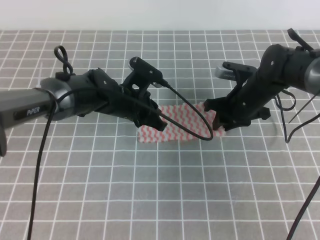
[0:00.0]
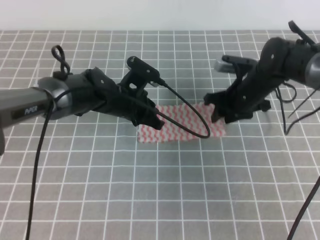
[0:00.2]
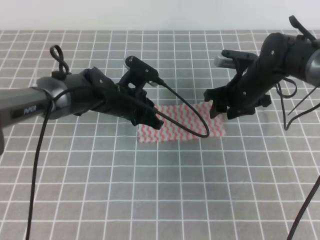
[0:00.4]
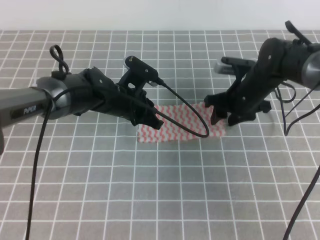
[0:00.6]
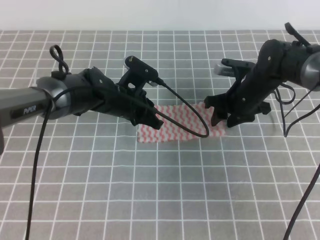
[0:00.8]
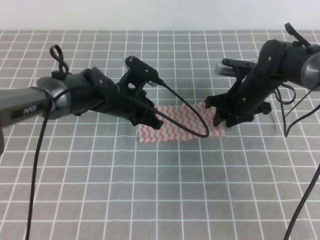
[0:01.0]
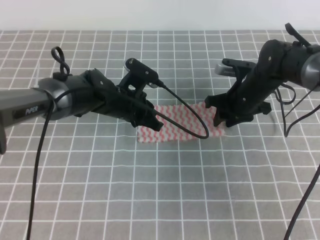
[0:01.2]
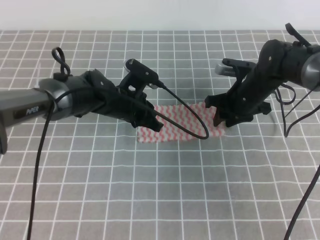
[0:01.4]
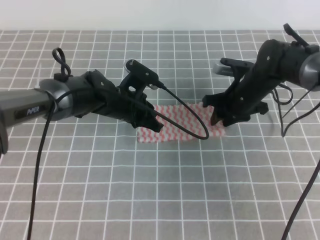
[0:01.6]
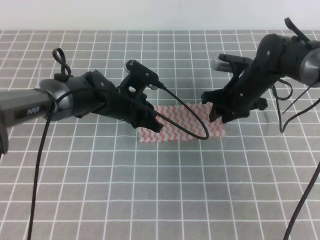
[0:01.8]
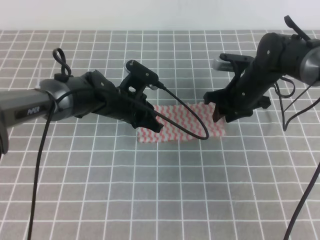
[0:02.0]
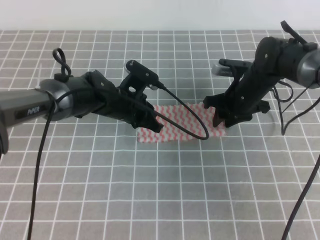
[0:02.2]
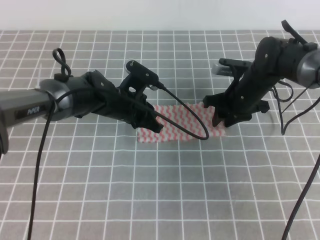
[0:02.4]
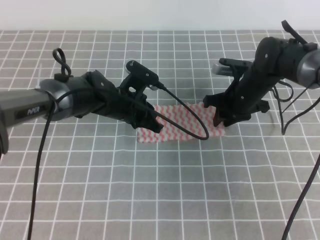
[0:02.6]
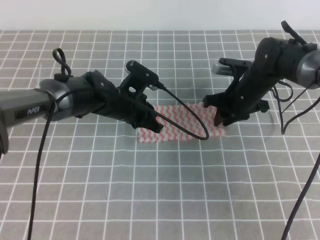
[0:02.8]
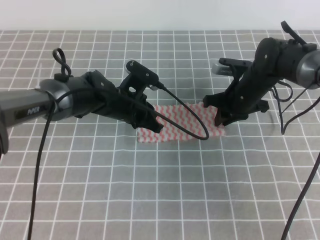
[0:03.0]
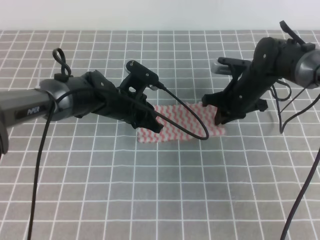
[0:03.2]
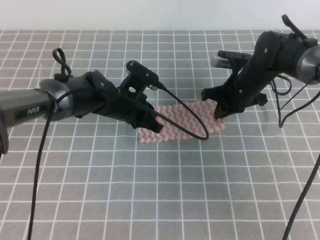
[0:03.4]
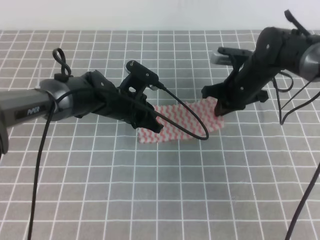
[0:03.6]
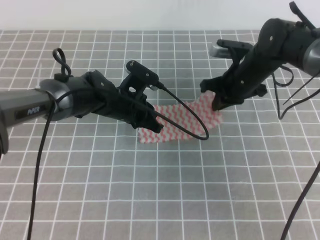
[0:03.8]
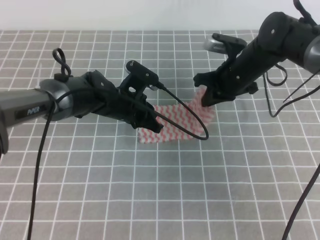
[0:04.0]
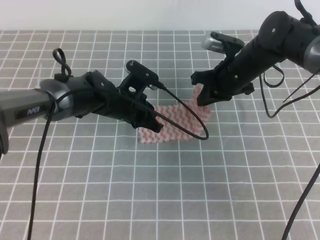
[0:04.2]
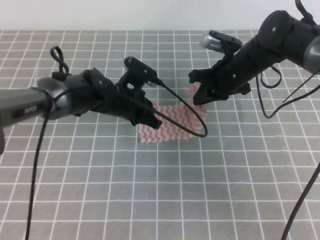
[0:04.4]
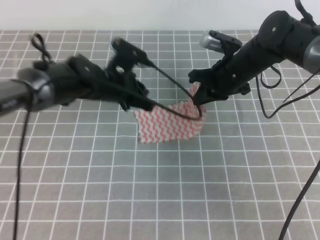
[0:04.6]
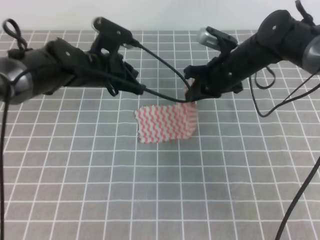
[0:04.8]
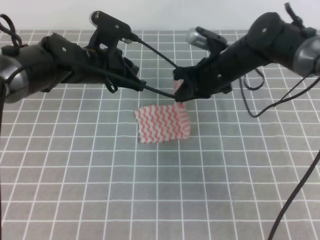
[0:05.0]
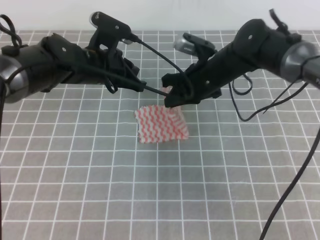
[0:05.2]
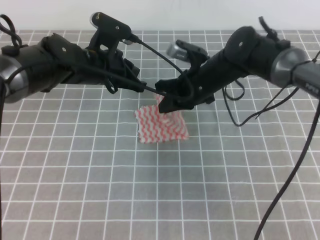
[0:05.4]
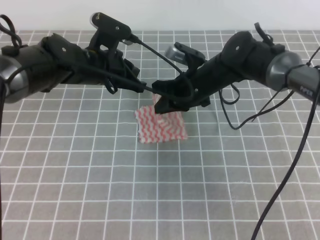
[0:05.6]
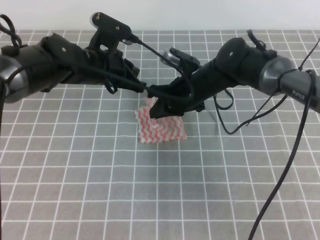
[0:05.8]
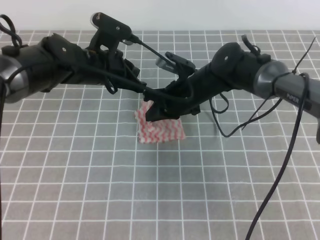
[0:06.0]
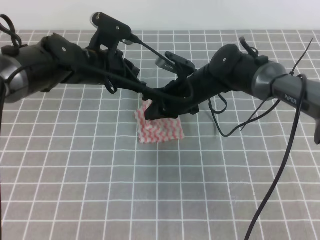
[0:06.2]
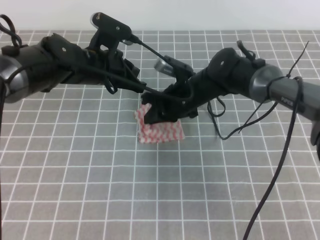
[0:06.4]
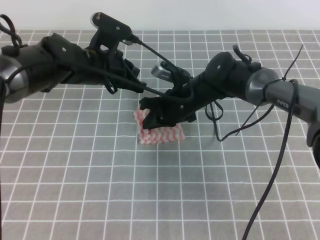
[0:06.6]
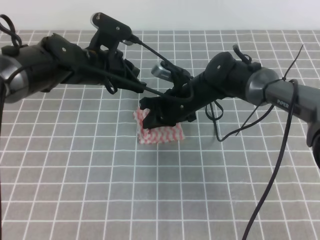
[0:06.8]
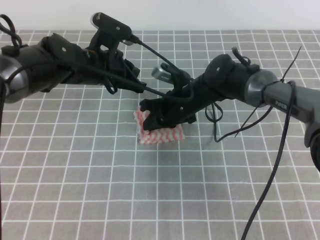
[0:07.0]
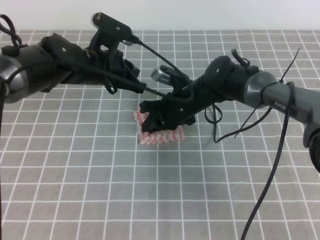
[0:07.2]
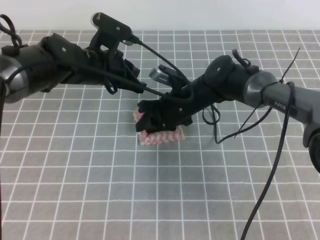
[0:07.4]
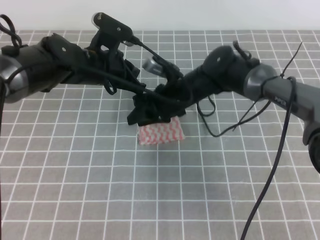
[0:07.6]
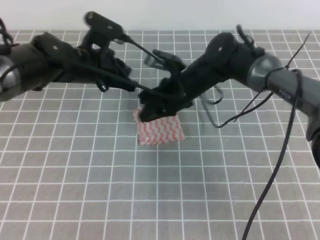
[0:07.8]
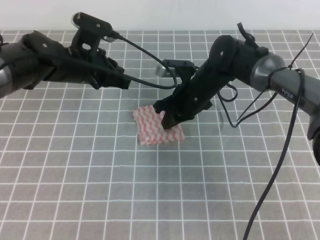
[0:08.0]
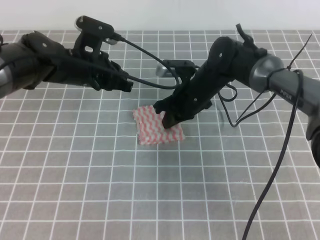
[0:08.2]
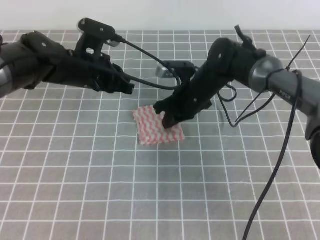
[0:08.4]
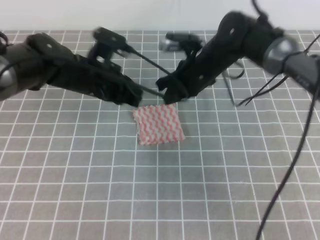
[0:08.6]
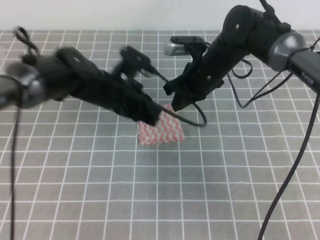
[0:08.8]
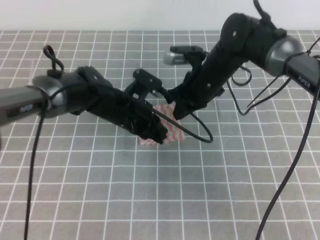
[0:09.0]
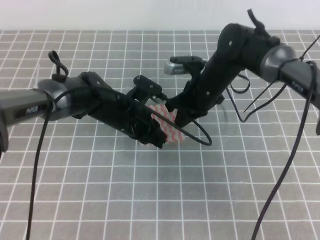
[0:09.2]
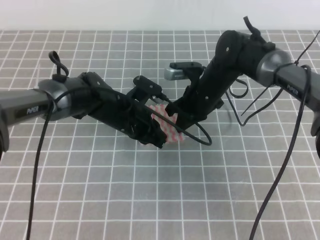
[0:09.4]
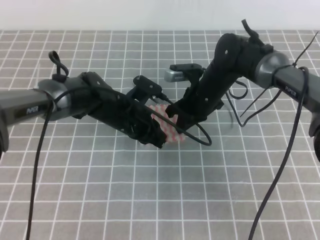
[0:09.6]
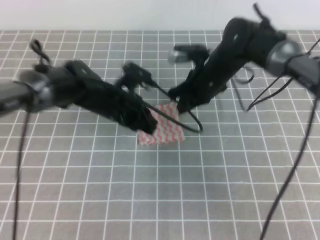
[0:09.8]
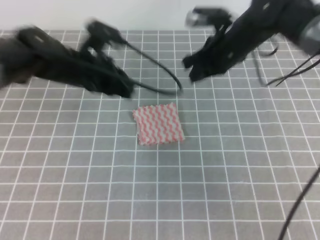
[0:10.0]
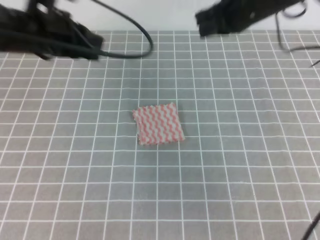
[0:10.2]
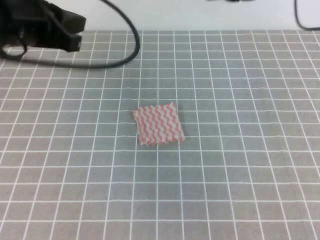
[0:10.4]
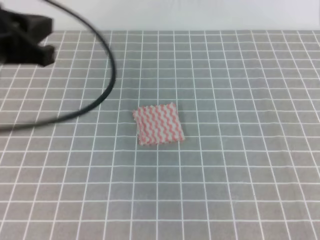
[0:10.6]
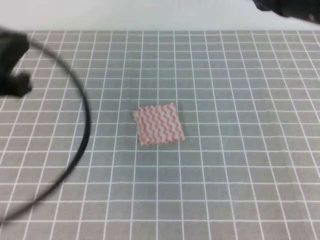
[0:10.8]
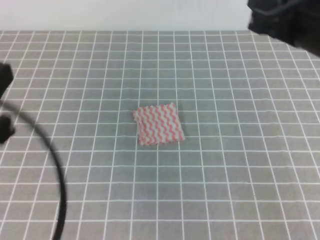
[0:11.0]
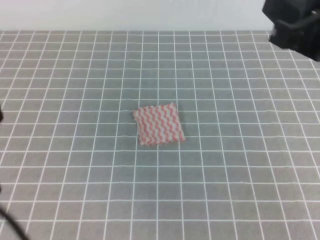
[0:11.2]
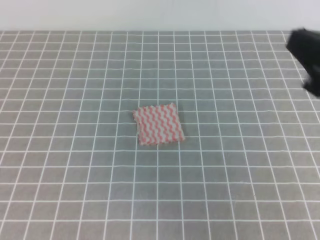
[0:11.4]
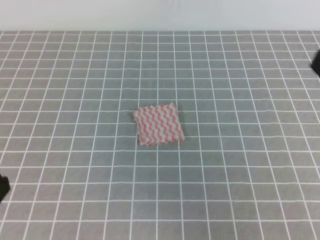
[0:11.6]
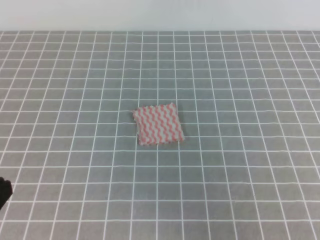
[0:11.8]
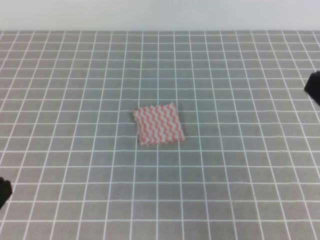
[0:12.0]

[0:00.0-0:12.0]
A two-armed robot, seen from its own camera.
0:00.0 to 0:01.6: Both grippers stay about where they are.
0:01.6 to 0:03.0: The right gripper closes.
0:03.0 to 0:04.4: The right gripper moves upward, roughly 5 cm.
0:04.4 to 0:06.0: The left gripper shifts some 5 cm upward. The right gripper shifts some 10 cm to the left.
0:06.0 to 0:07.6: The right gripper opens.
0:07.6 to 0:09.0: The right gripper ends up roughly 5 cm from where it was, and closes its fingers, while the left gripper is displaced downward by approximately 5 cm.
0:09.0 to 0:10.4: The right gripper moves upward, about 20 cm. Meanwhile the left gripper goes approximately 25 cm upward and to the left.
0:10.4 to 0:12.0: The grippers both shift backward by some 25 cm.

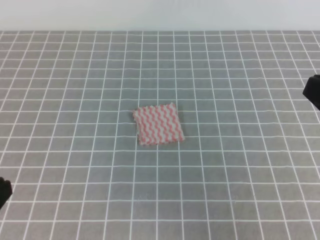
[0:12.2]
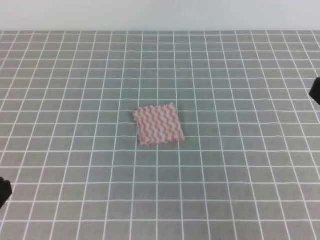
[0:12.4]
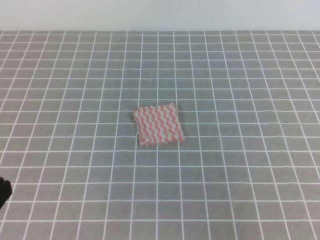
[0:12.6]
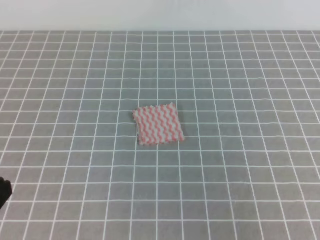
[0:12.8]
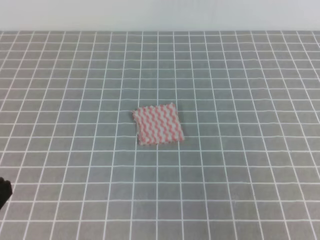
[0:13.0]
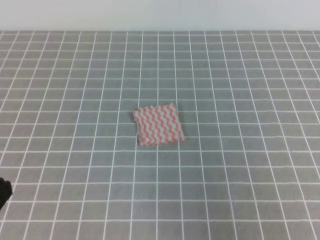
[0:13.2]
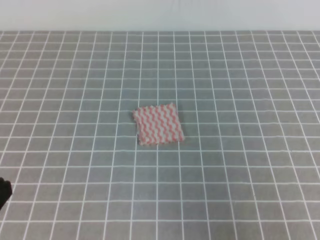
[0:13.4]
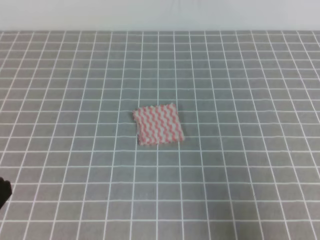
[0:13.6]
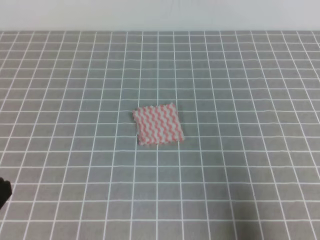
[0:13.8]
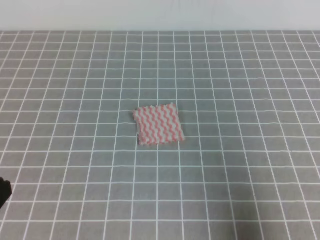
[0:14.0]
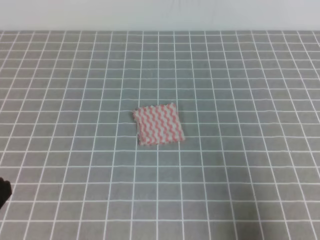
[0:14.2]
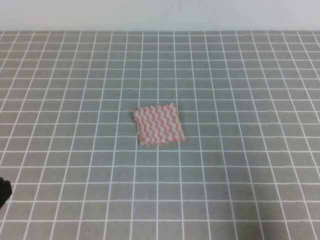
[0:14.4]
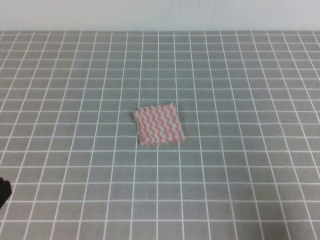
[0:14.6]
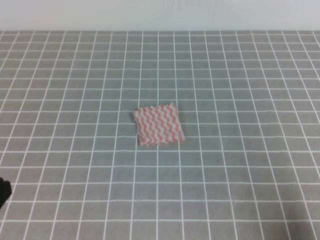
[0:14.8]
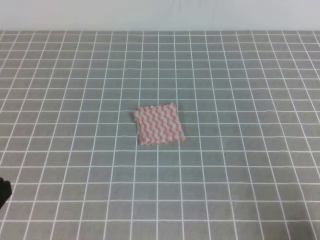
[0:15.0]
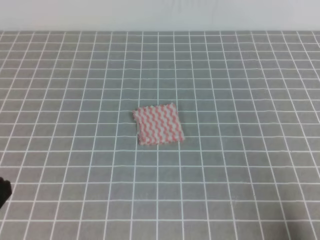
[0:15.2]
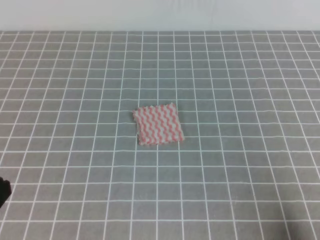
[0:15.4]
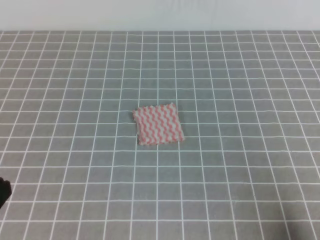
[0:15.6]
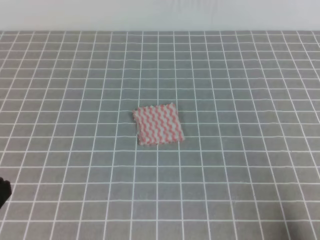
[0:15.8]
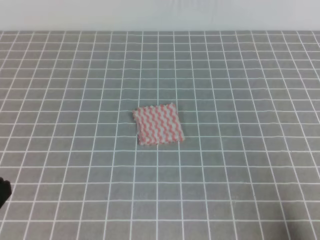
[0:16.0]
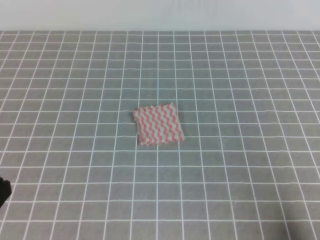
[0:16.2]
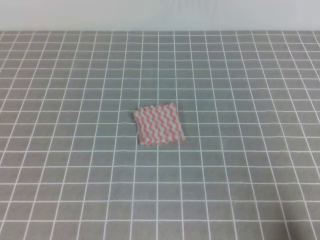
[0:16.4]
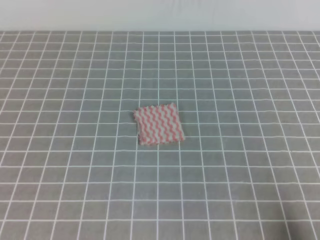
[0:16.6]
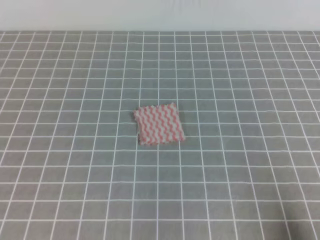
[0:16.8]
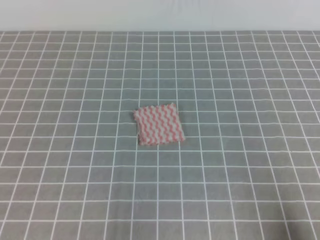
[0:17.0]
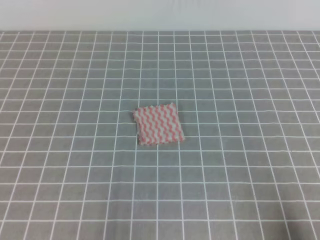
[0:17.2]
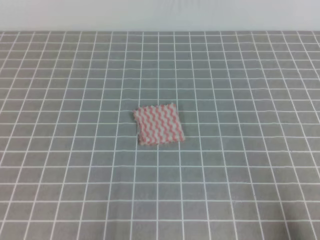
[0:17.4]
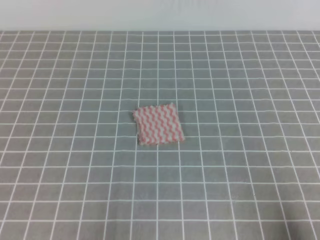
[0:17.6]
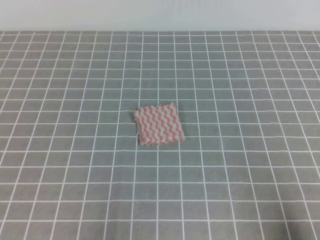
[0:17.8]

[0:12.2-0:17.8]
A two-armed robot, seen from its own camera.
Step, 0:12.2 to 0:17.8: Fold the towel.
0:12.2 to 0:13.6: The right gripper moves backward, downward and to the right, approximately 10 cm.
0:13.6 to 0:15.0: The right gripper heads downward, covering approximately 10 cm.
